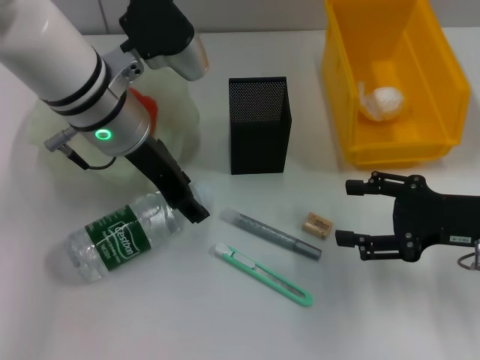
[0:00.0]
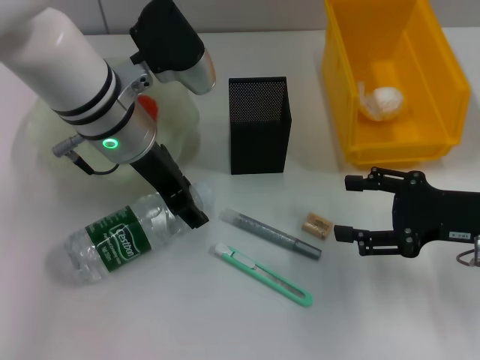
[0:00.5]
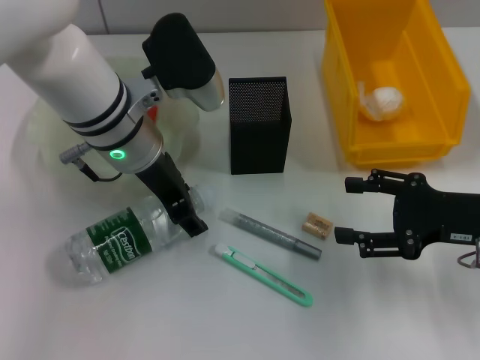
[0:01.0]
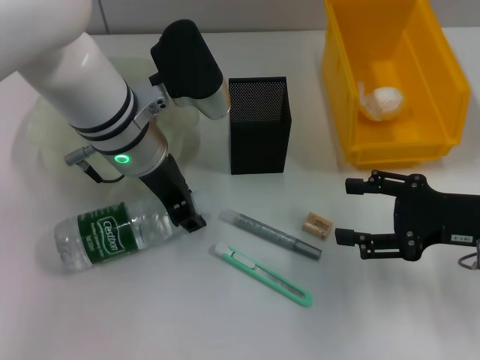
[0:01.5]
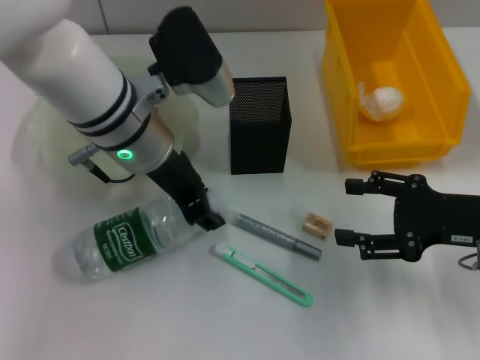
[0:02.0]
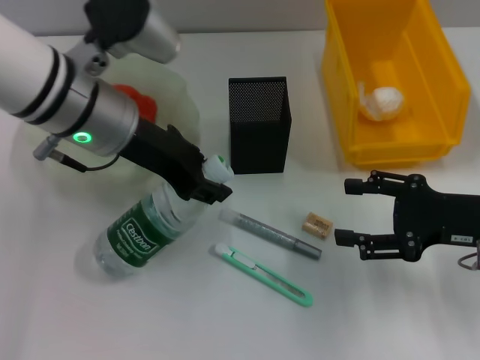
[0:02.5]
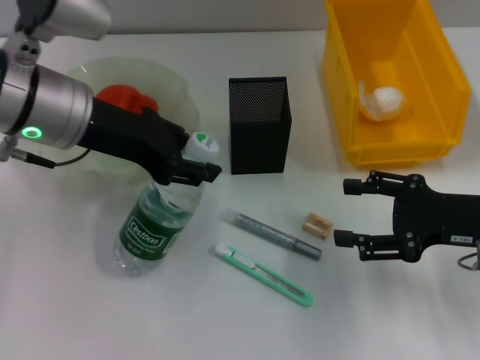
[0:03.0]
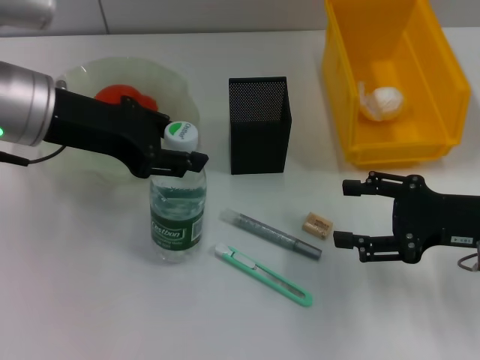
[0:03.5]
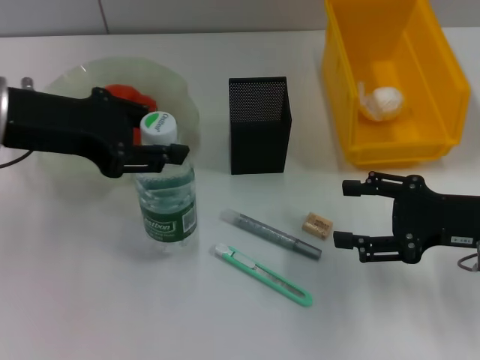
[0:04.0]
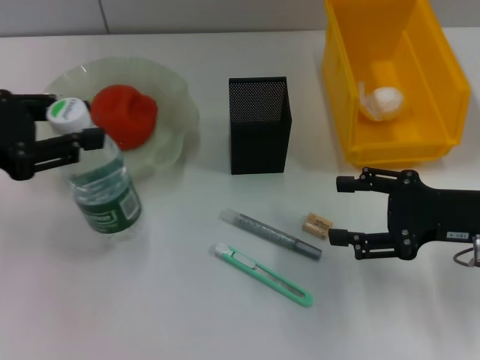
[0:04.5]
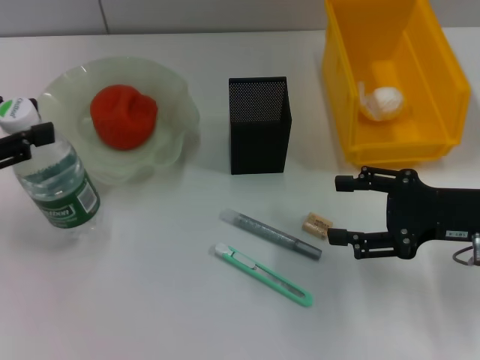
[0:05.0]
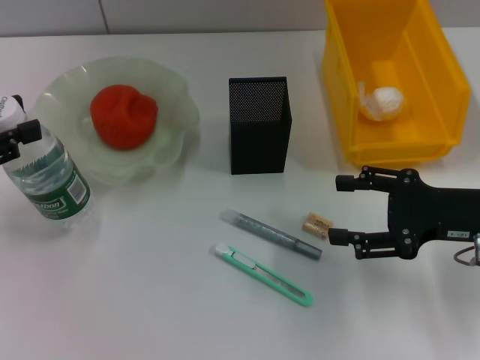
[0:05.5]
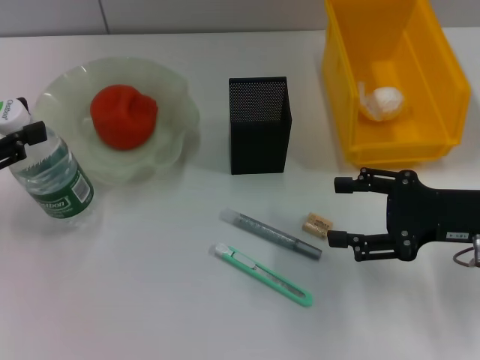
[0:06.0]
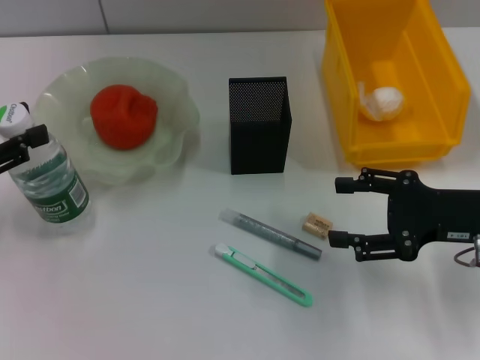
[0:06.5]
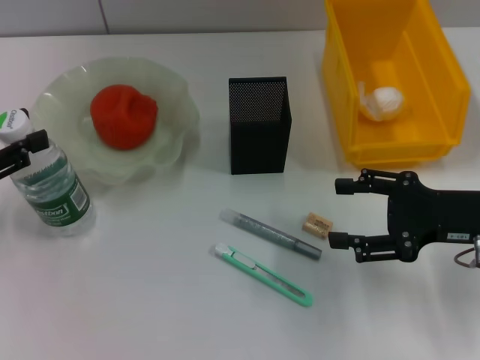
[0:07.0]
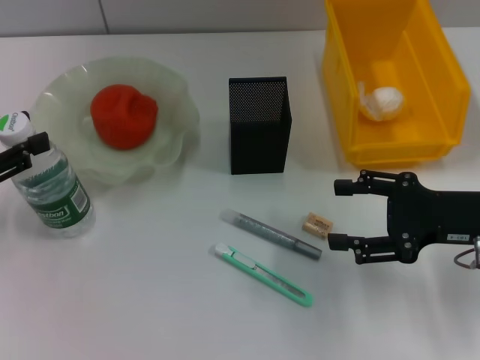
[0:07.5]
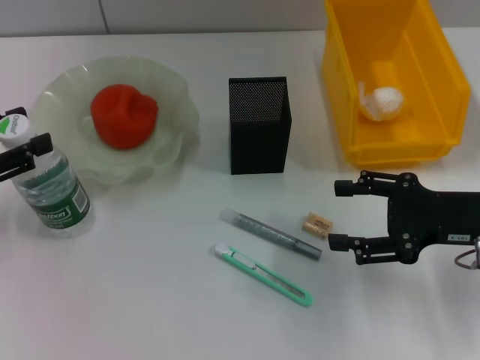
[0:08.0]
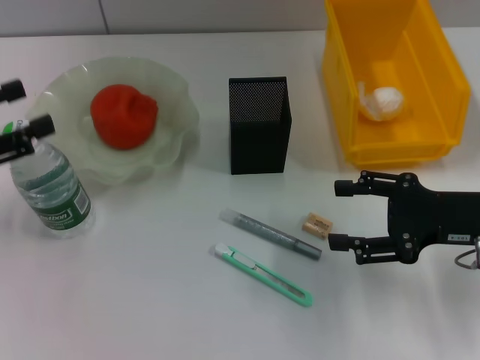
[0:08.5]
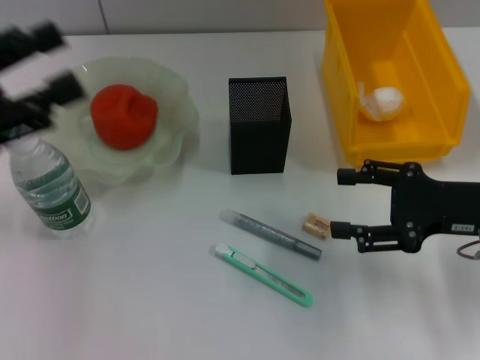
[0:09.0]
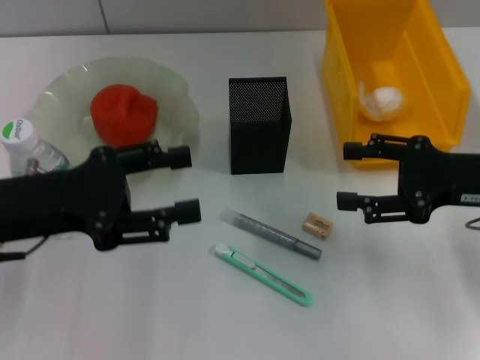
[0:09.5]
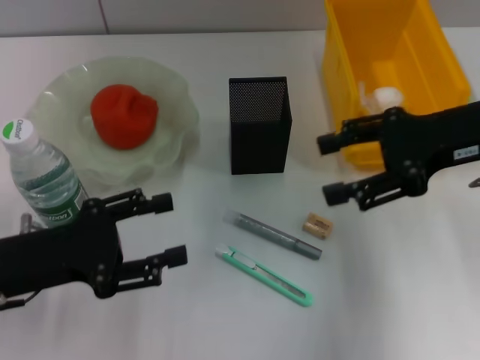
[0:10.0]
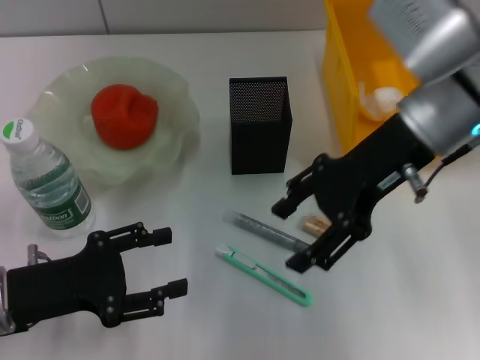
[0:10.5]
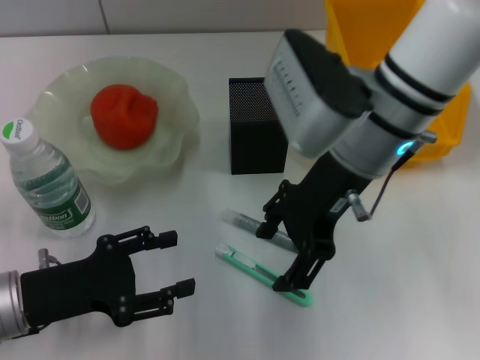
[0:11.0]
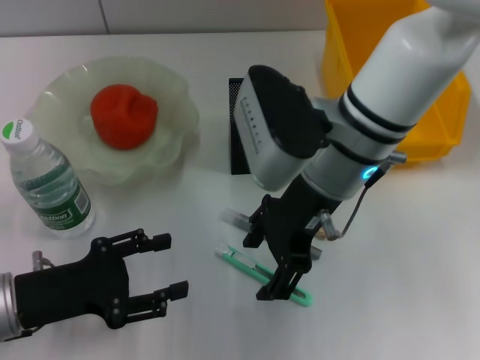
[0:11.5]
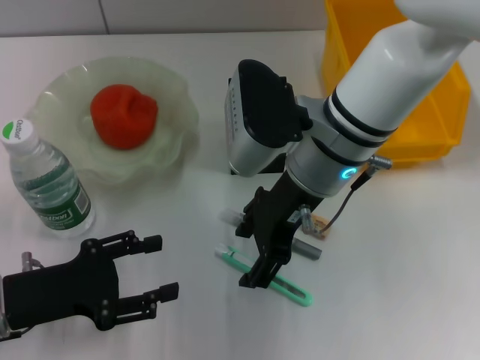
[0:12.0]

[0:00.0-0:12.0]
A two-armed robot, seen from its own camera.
Step, 0:02.0 to 0:08.0: Place the water bottle on the table with the left hand.
0:00.0 to 0:02.0: The left gripper closes.
0:02.0 to 0:04.0: The left gripper travels to the left and upward by roughly 15 cm.
0:04.0 to 0:06.0: The left gripper travels to the left, backward and downward by about 15 cm.
0:06.0 to 0:08.0: The grippers move only a little.
0:08.0 to 0:10.0: The left gripper heads to the right and downward, covering roughly 10 cm, and opens its fingers, while the right gripper shifts roughly 10 cm upward and forward.
0:10.0 to 0:12.0: The right gripper heads to the left, covering roughly 20 cm.

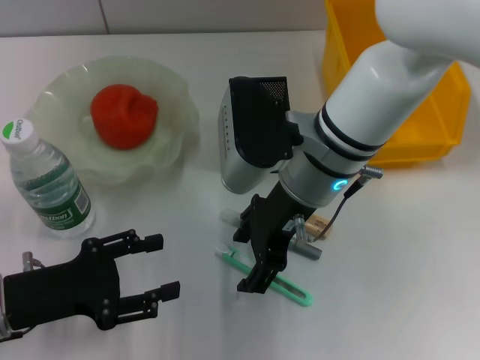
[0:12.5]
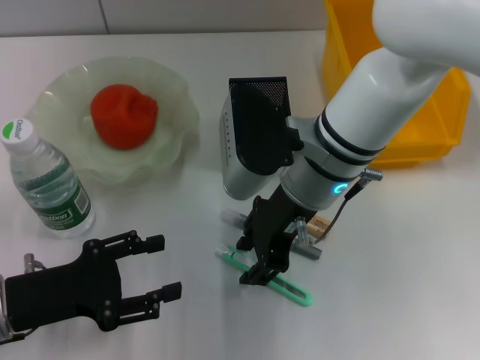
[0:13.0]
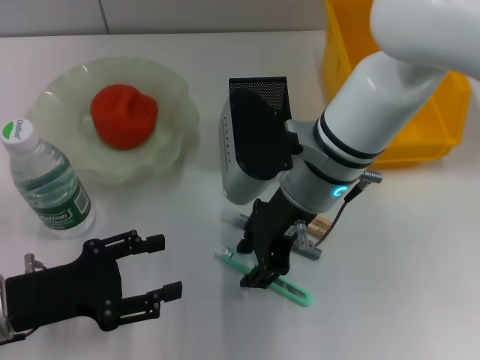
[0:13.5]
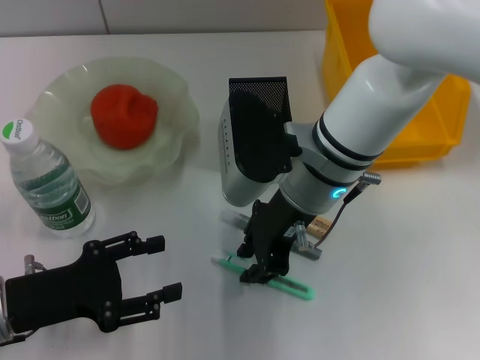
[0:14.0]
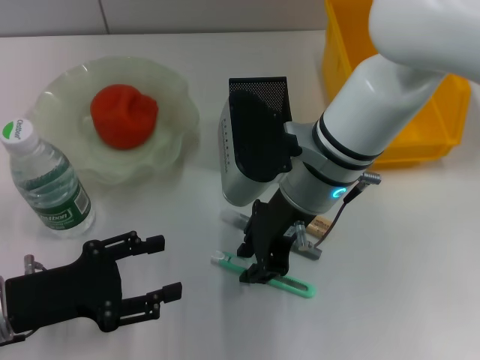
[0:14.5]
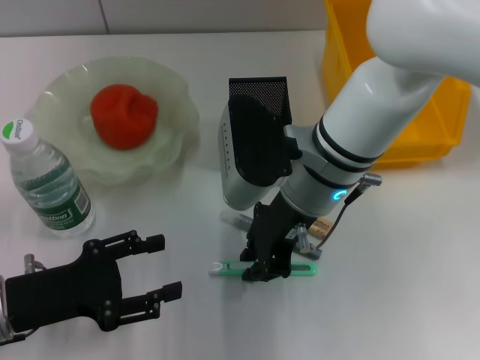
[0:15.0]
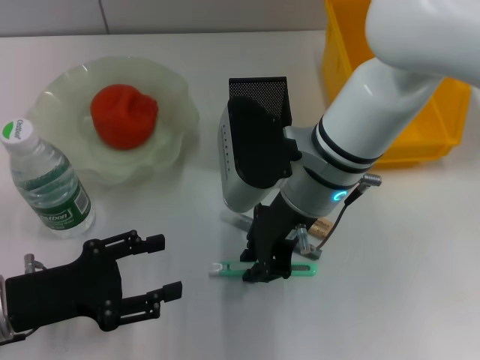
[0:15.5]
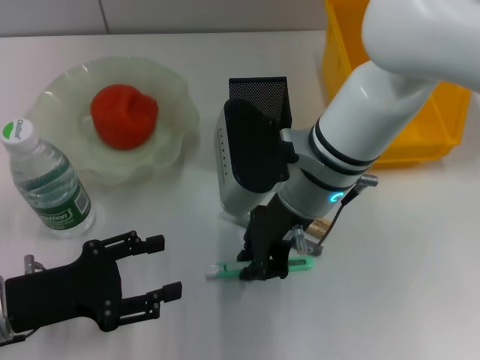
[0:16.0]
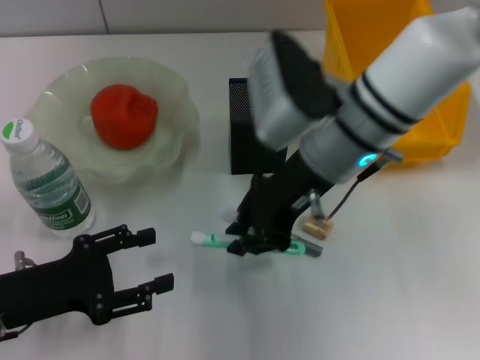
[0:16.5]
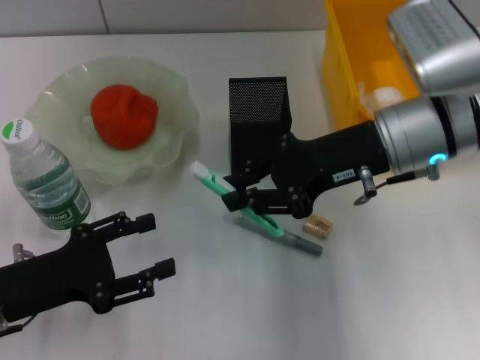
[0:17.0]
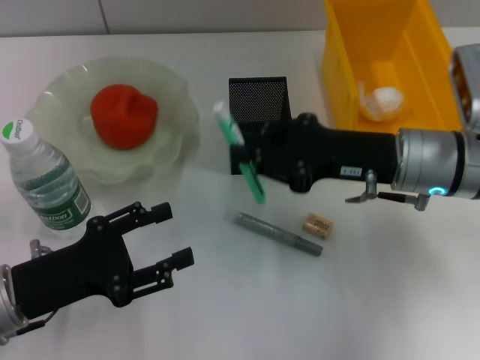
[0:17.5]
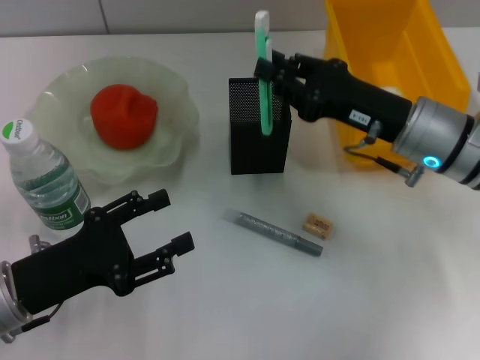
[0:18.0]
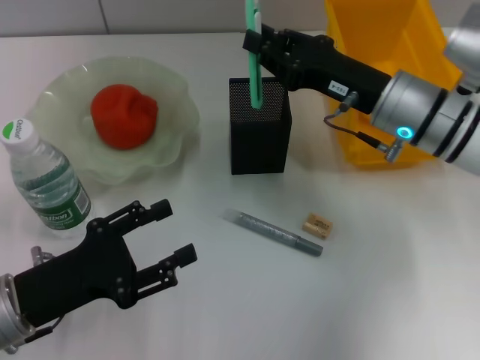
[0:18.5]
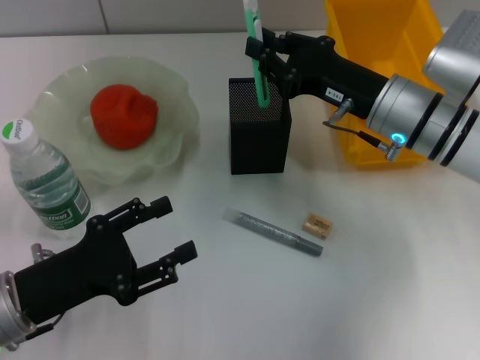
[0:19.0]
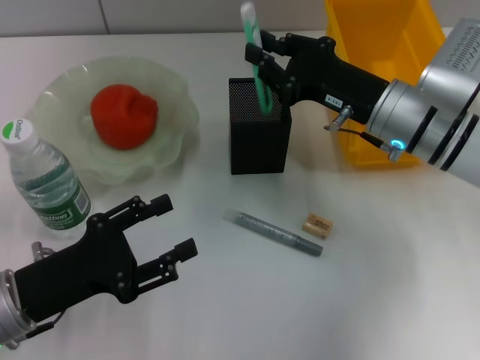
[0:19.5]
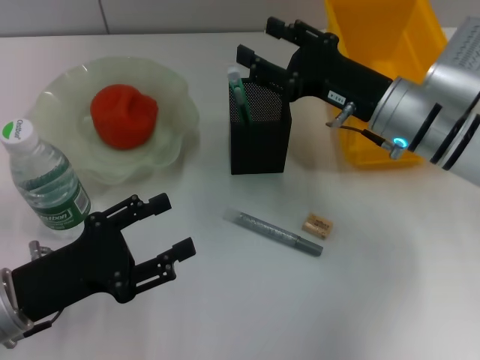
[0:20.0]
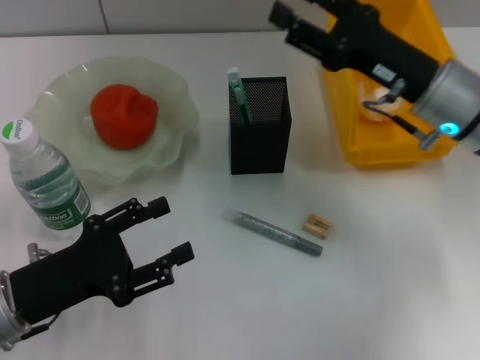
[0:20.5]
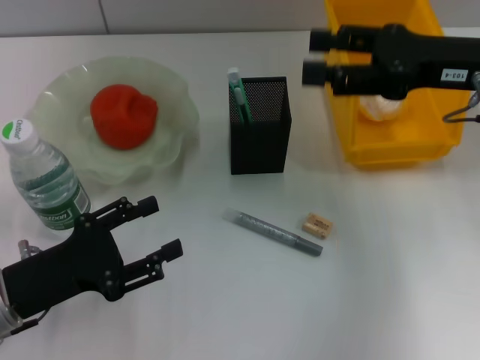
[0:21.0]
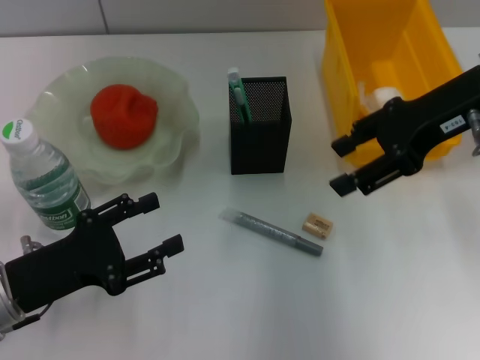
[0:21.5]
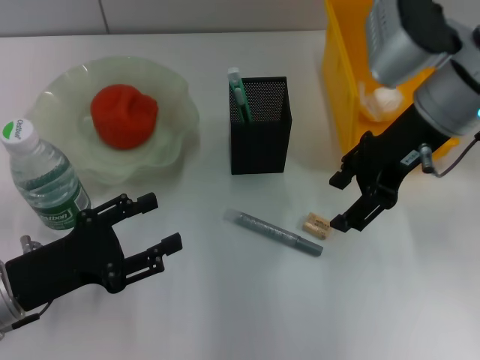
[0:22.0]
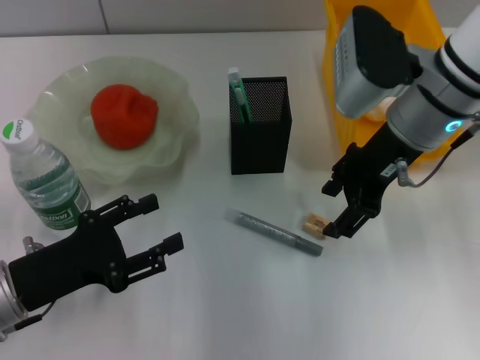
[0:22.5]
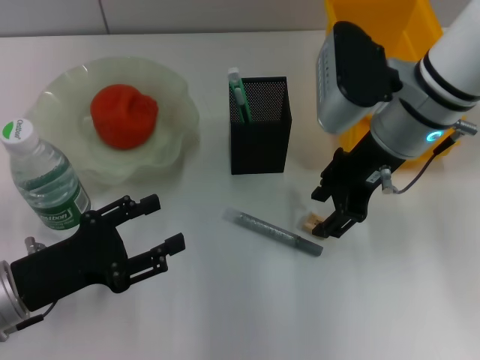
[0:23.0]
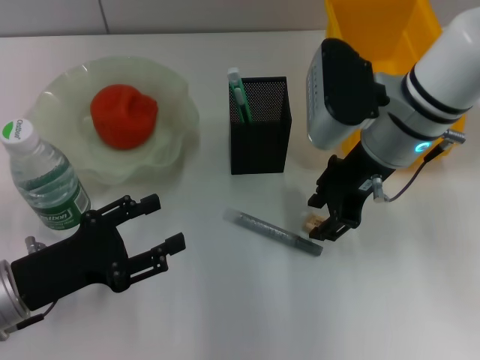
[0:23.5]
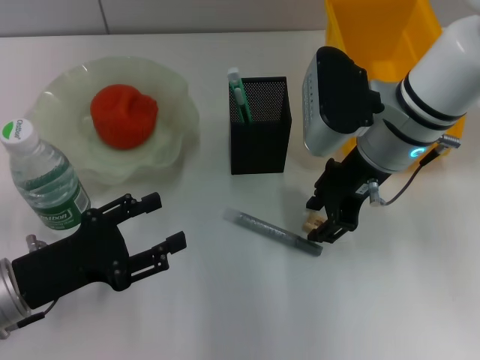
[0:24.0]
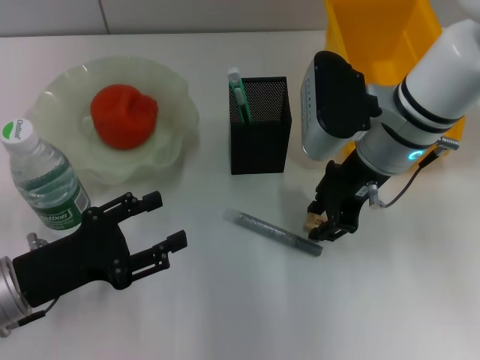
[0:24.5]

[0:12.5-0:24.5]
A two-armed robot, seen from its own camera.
Step, 0:12.5 to 0:15.5: Grab the blue utility knife with the right hand.
Step, 0:16.0 to 0:19.5: Place the blue utility knife into the pen holder with the right hand.
0:12.5 to 0:14.5: The right gripper closes its fingers.
0:16.5 to 0:18.5: The right gripper shifts some 10 cm to the right and downward.
0:18.5 to 0:20.5: The right gripper opens.
0:20.5 to 0:22.5: The right gripper is displaced upward by roughly 5 cm.
0:22.5 to 0:24.5: The grippers stay close to where they were, moving slightly.

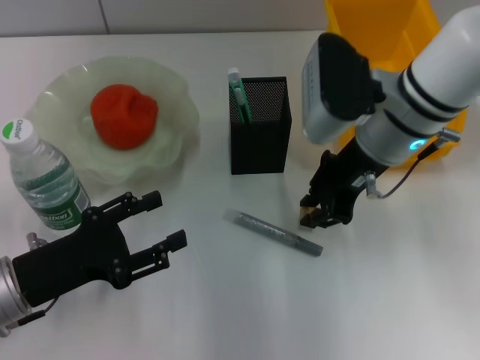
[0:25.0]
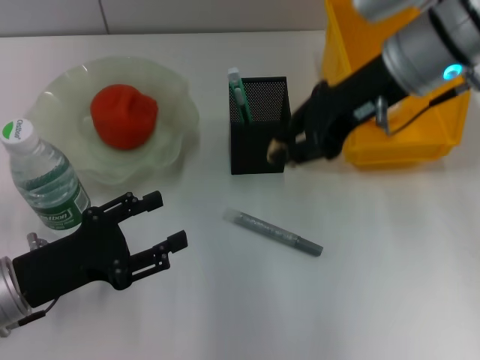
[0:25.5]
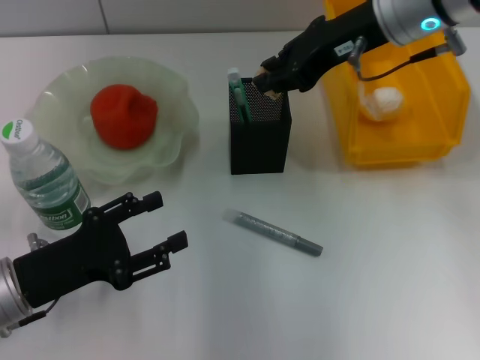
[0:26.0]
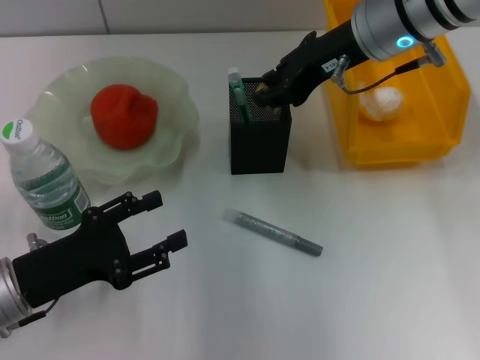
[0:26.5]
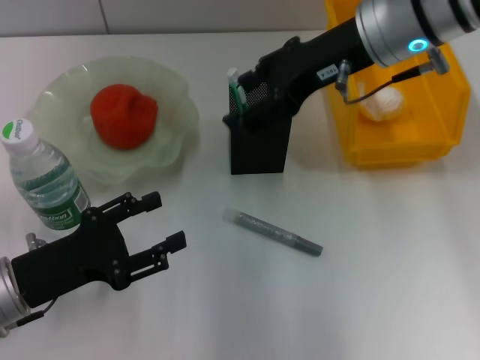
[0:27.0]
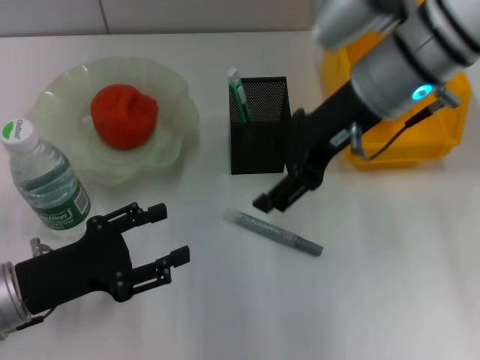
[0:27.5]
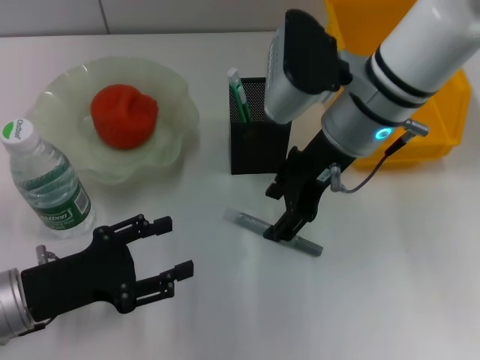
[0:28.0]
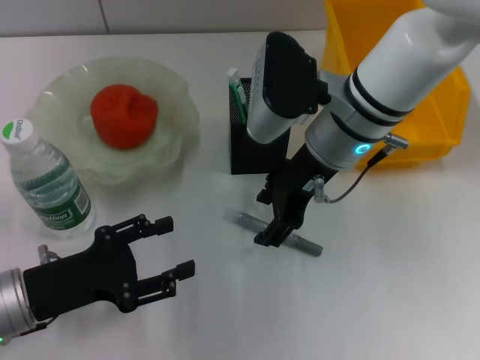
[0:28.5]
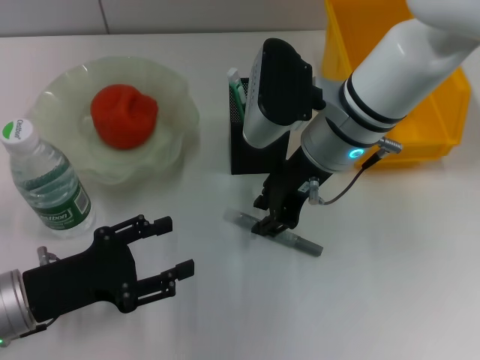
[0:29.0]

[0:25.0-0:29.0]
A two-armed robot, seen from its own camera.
Step, 0:25.0 to 0:26.5: Put the eraser into the pen holder with the right hand.
0:25.0 to 0:27.0: The right gripper heads upward, covering some 10 cm, and opens.
0:27.0 to 0:29.0: The right gripper heads downward, covering approximately 10 cm.
